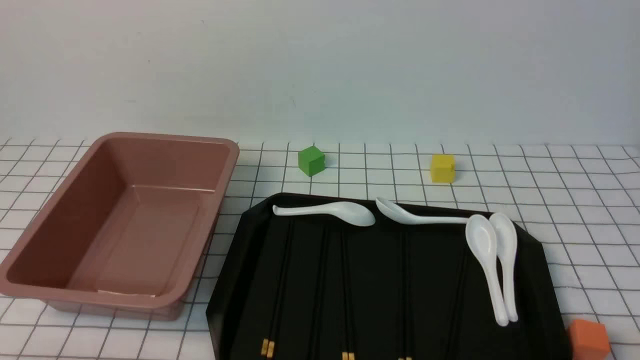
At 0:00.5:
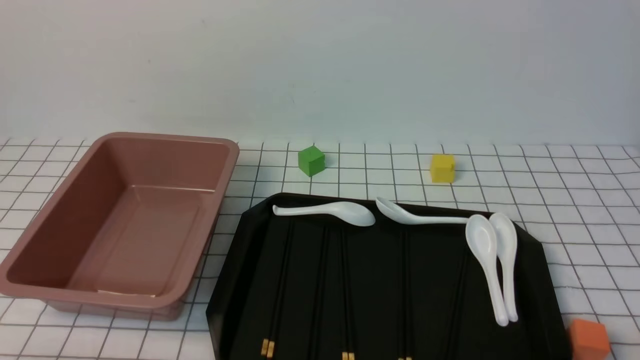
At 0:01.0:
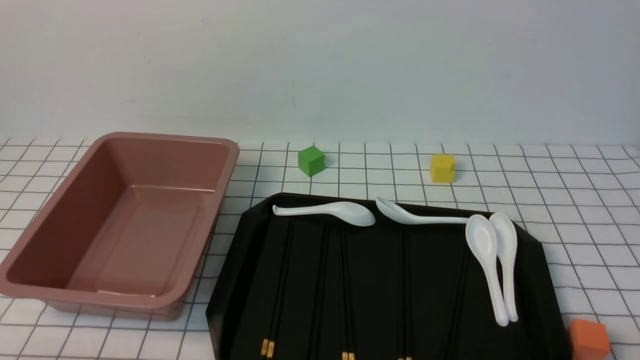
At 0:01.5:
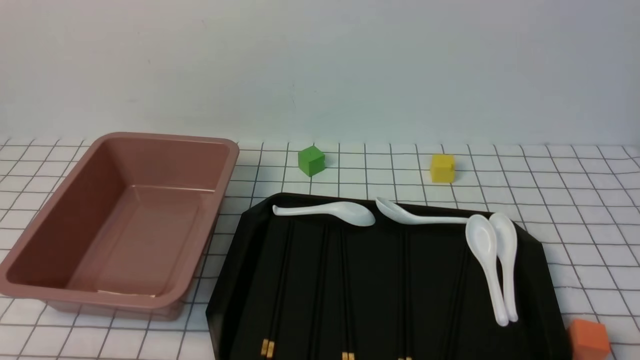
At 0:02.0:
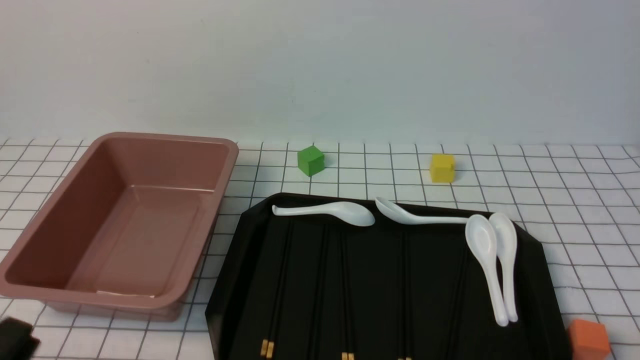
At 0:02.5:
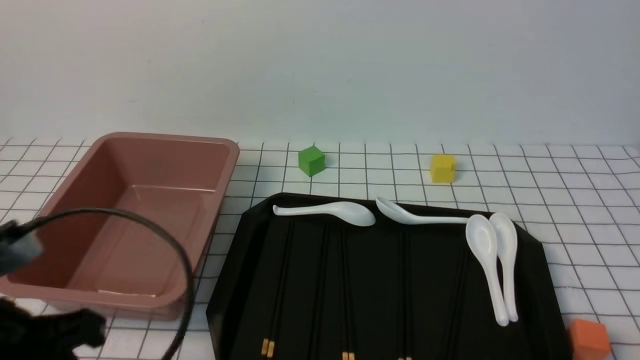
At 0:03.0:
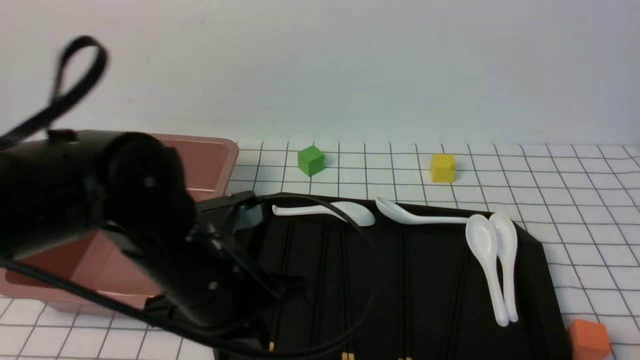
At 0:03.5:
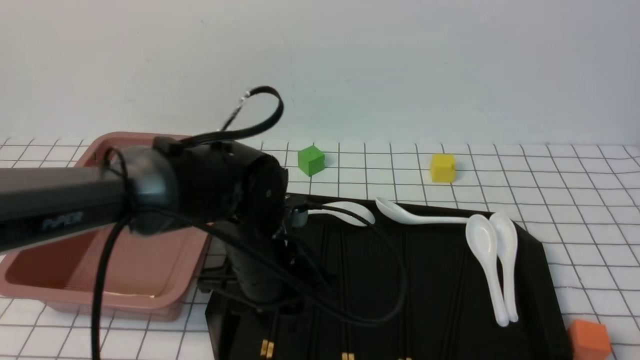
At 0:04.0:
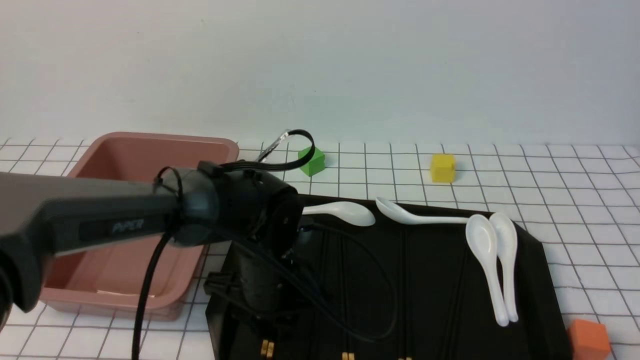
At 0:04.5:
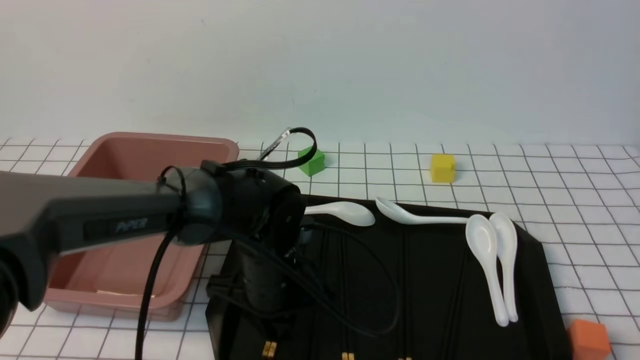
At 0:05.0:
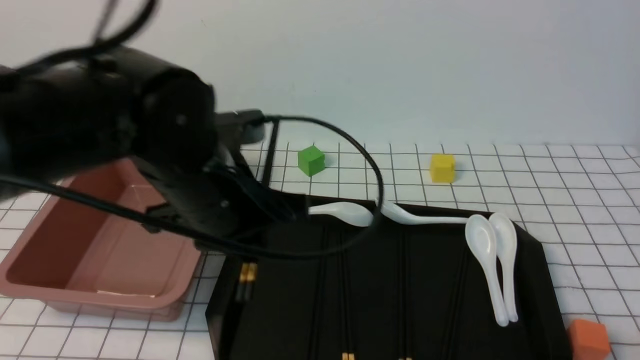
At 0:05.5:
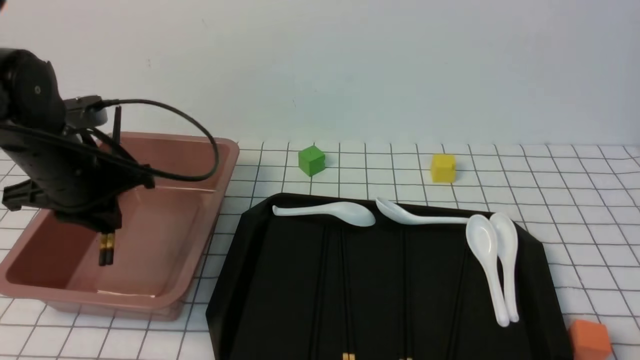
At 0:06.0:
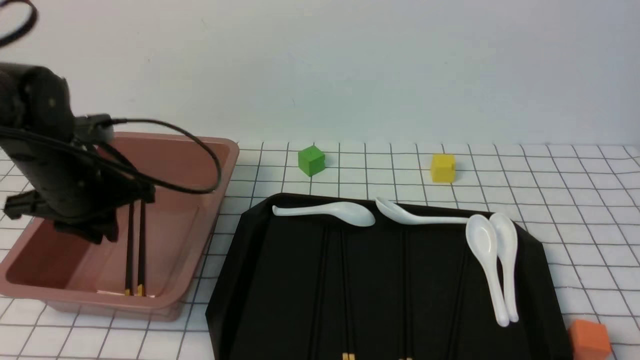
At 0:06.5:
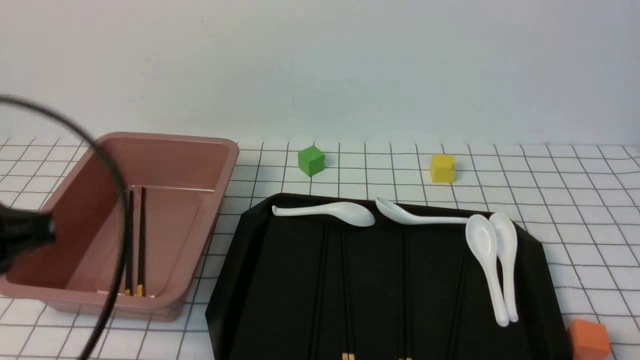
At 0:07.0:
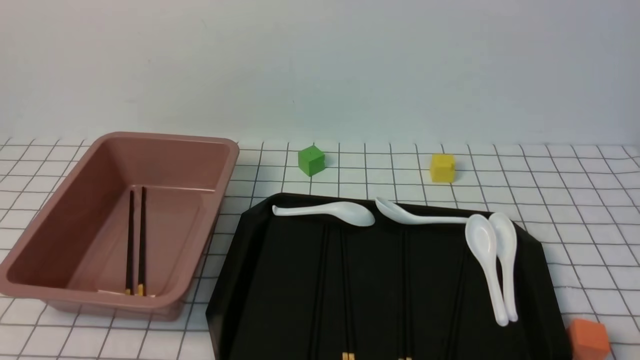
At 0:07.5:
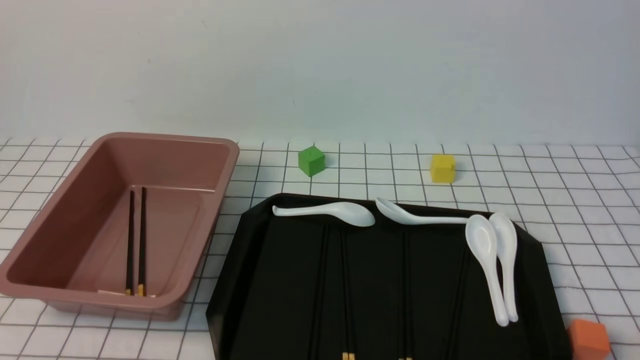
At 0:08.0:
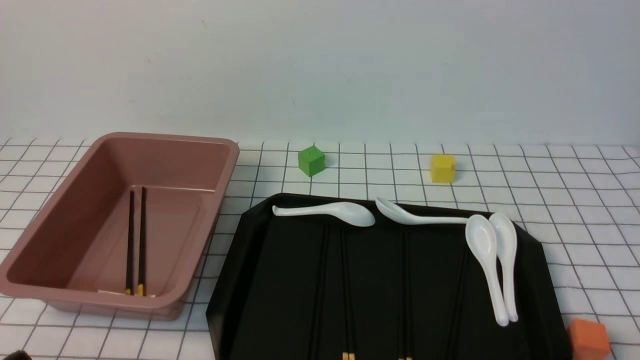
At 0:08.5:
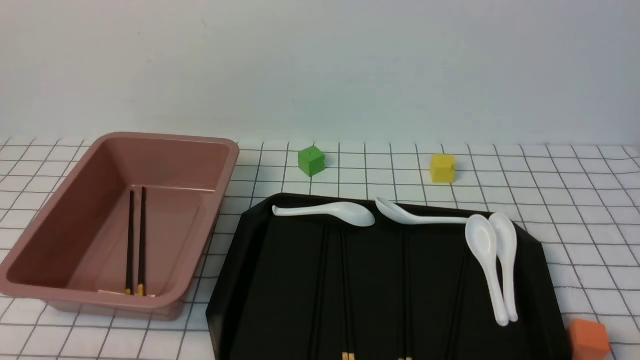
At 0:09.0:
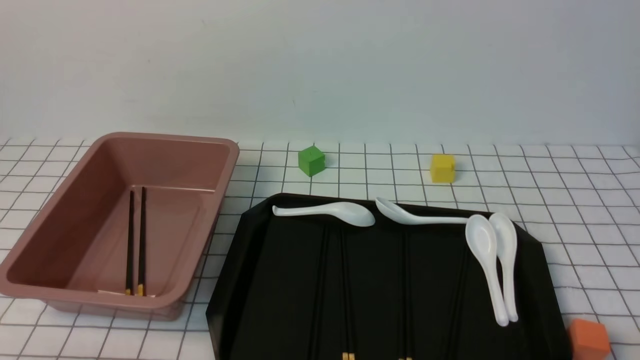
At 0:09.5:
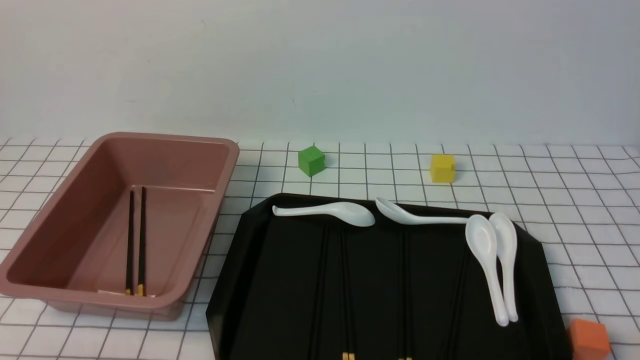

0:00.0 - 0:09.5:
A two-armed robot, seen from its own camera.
Step, 0:00.0 - 0:04.5: use the left arm to grab a pair of chopsticks.
Step, 0:05.0 - 0:06.0: use the left arm to put the chopsticks into the lunch box.
0:00.0 - 0:02.0: The left gripper shifts about 5 cm upward, and closes up.
0:02.0 - 0:04.0: The left gripper travels forward and to the right by approximately 30 cm, and opens.
0:04.0 - 0:05.5: The left gripper goes about 20 cm to the left and upward, and closes its fingers.
0:05.5 - 0:07.5: The left gripper heads backward, covering about 30 cm, and closes up.

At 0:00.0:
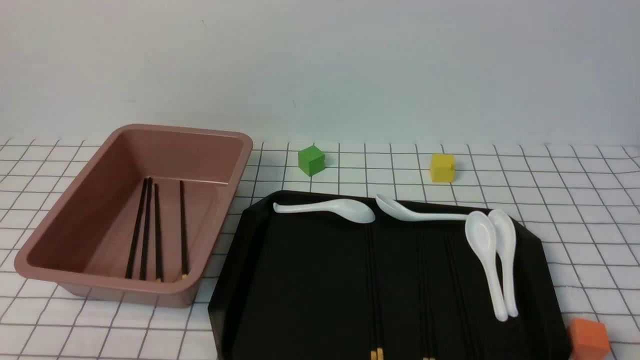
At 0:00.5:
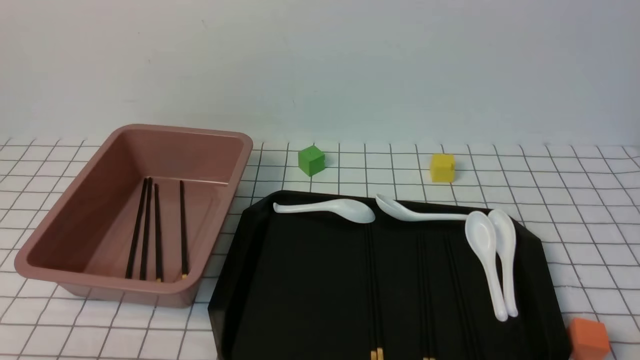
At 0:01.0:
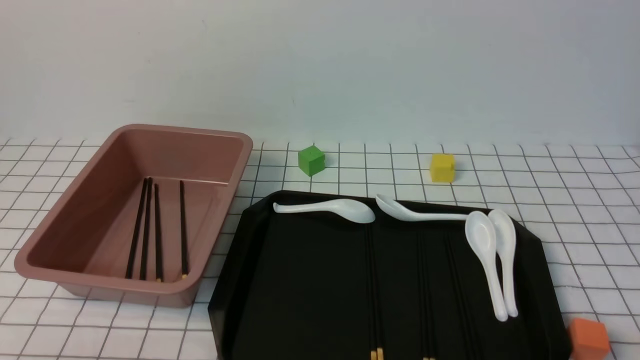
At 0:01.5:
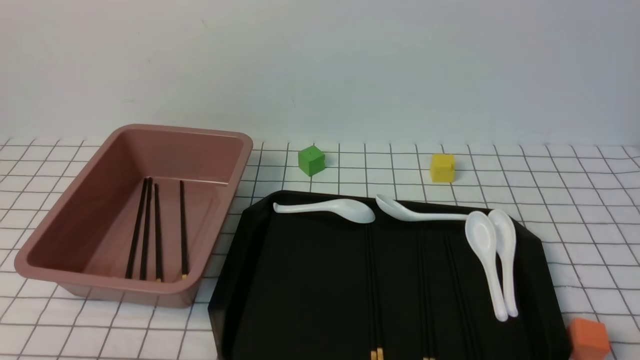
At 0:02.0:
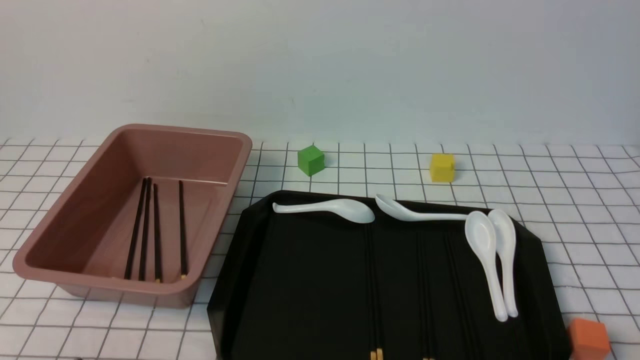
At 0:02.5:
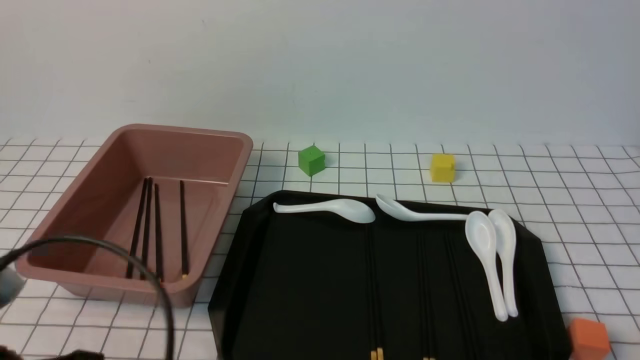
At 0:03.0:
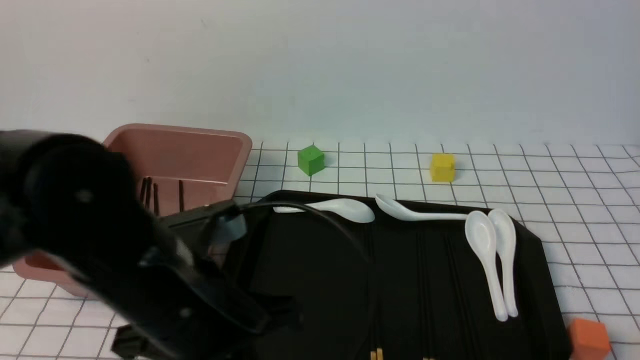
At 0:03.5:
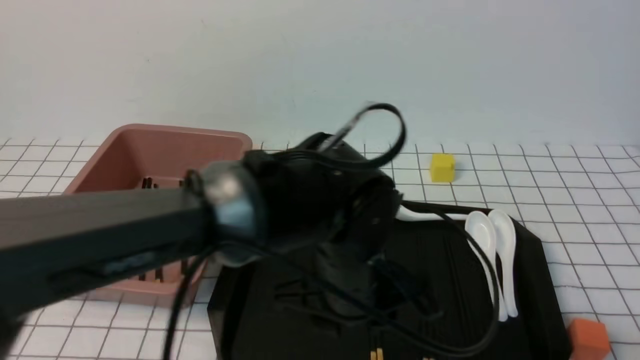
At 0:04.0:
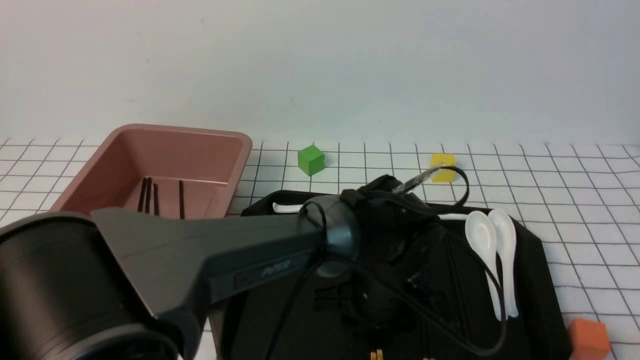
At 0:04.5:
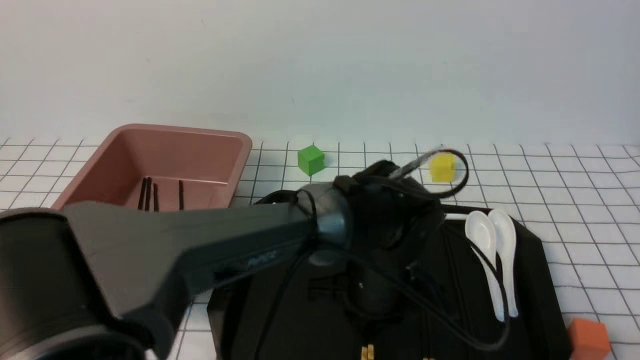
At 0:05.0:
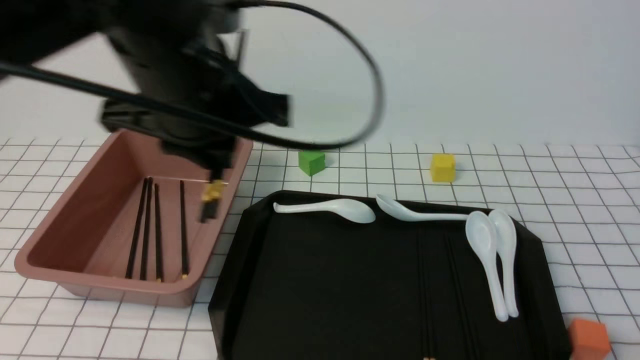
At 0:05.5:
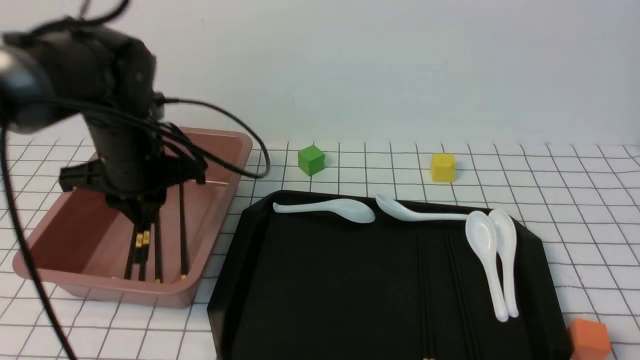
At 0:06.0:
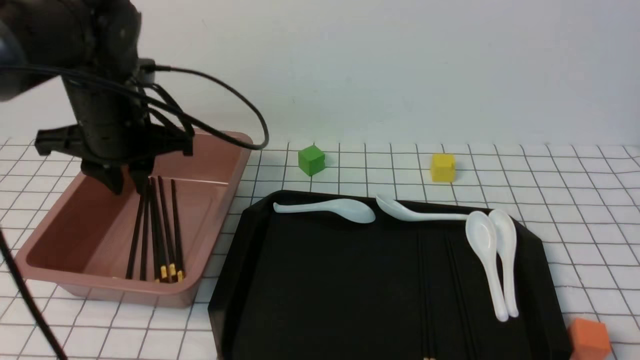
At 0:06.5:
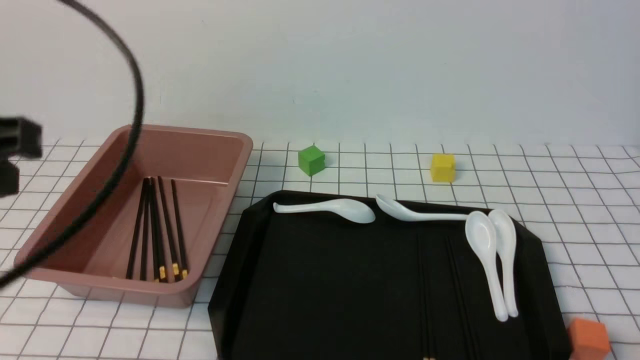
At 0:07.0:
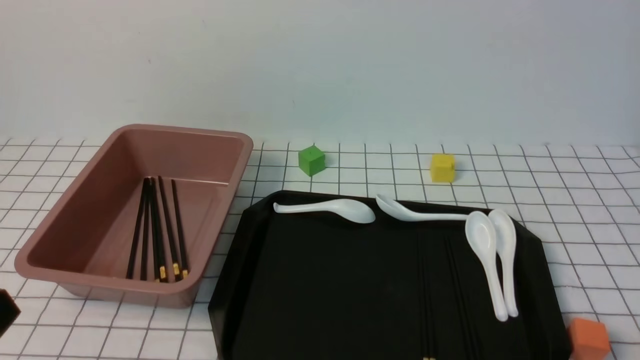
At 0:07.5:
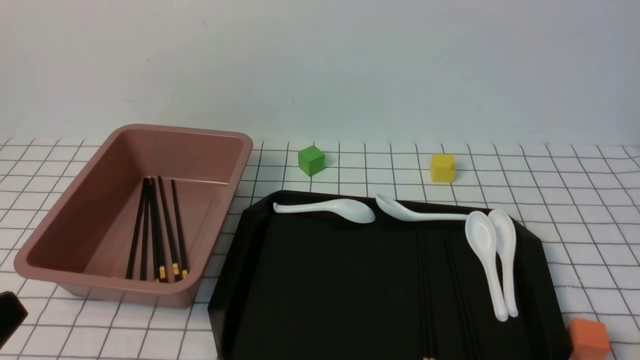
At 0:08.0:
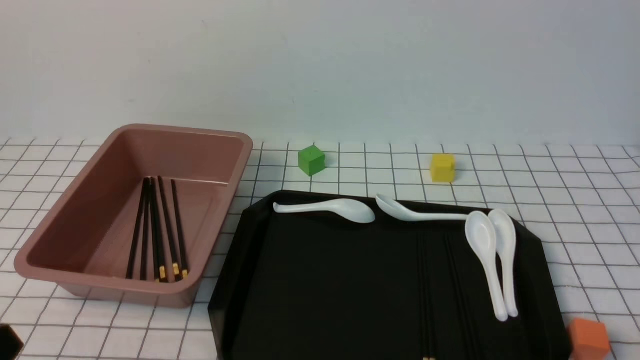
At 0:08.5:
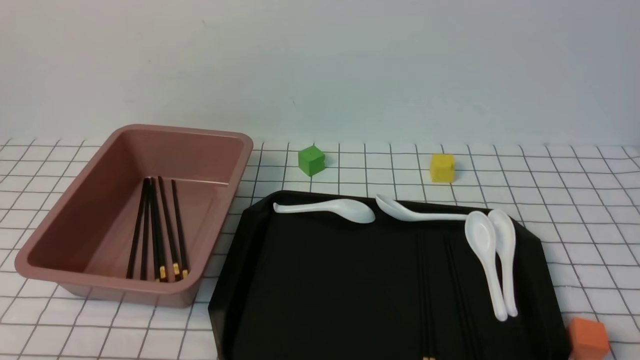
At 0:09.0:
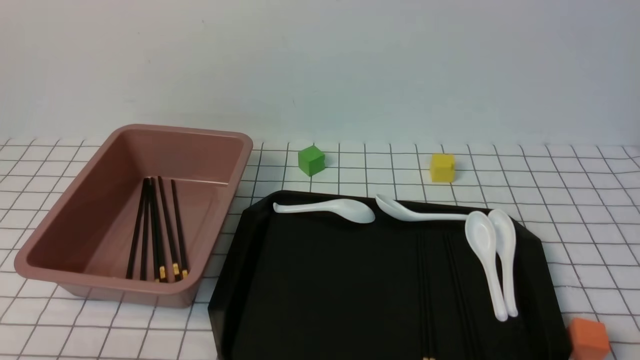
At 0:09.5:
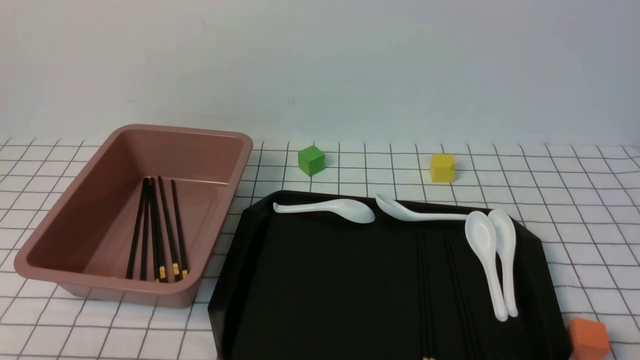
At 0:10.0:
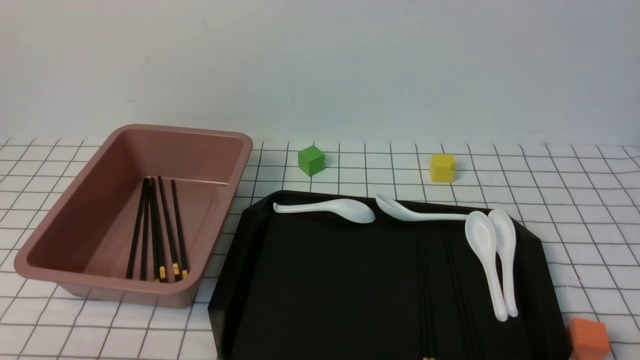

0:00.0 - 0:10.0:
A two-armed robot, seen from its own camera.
Step, 0:00.0 - 0:04.5: use the left arm to grab a pair of chopsticks.
Step, 0:05.0 - 0:06.0: use the left arm to put the chopsticks into the lunch box.
0:02.0 - 0:04.0: The left gripper goes about 40 cm to the right and forward, and opens.
0:04.0 - 0:06.0: The left gripper shifts some 30 cm to the left and upward, and closes its fingers.
0:06.0 - 0:08.0: The left gripper is displaced backward by about 30 cm, and closes up.
